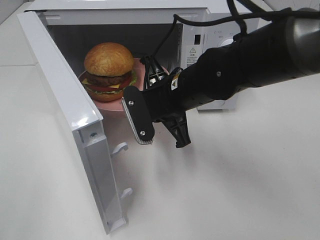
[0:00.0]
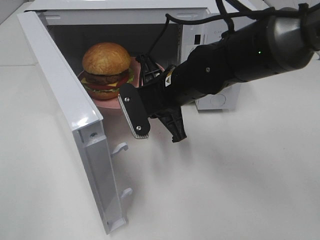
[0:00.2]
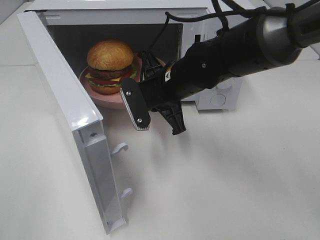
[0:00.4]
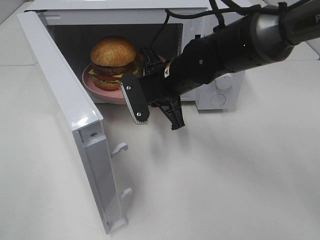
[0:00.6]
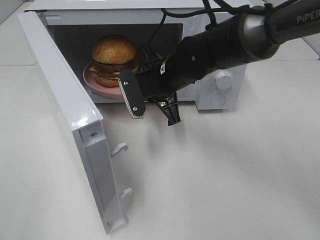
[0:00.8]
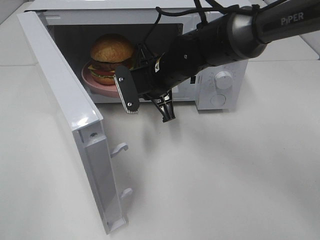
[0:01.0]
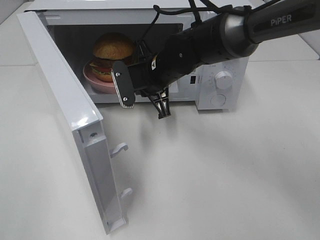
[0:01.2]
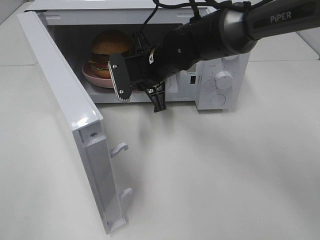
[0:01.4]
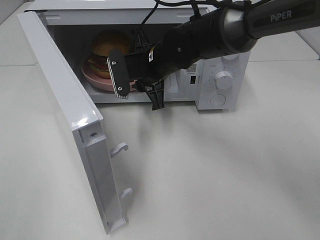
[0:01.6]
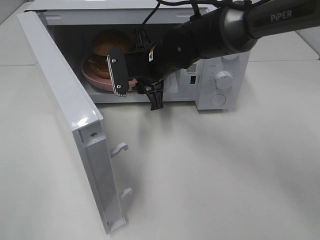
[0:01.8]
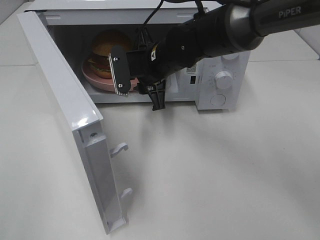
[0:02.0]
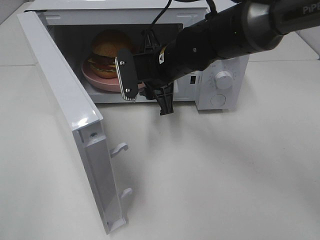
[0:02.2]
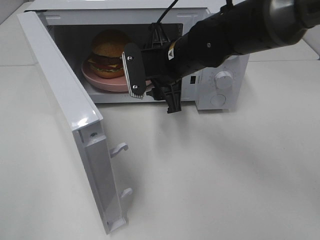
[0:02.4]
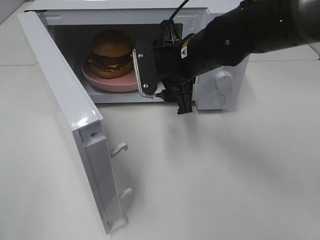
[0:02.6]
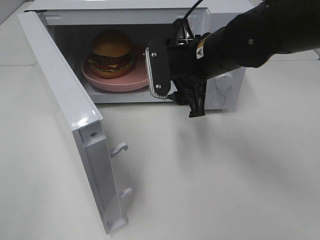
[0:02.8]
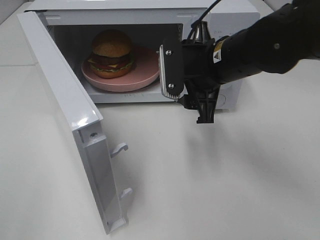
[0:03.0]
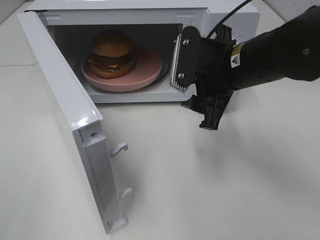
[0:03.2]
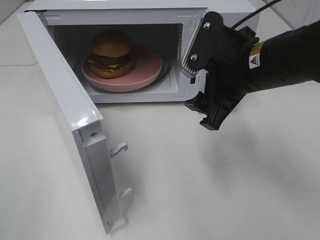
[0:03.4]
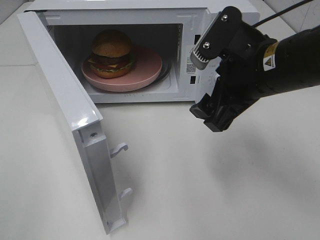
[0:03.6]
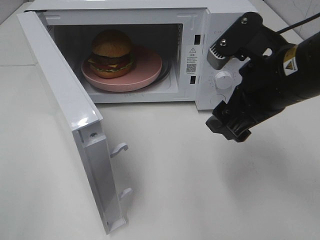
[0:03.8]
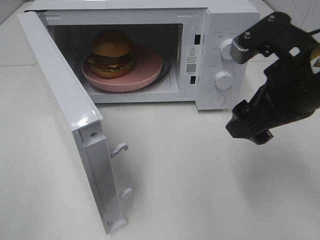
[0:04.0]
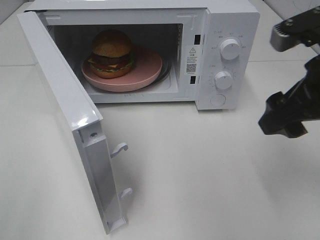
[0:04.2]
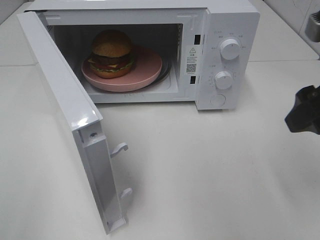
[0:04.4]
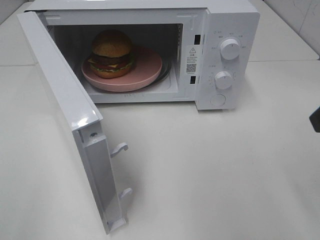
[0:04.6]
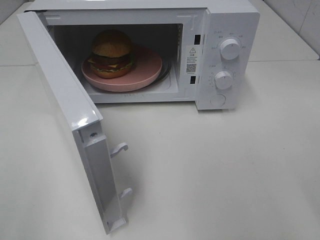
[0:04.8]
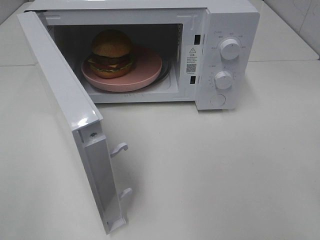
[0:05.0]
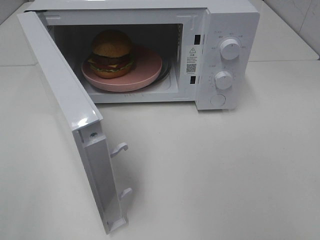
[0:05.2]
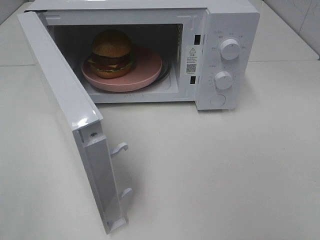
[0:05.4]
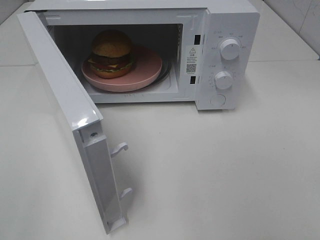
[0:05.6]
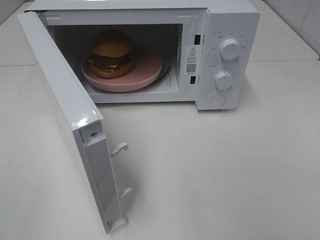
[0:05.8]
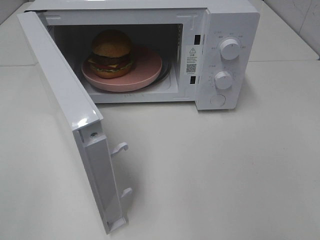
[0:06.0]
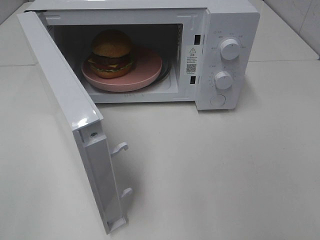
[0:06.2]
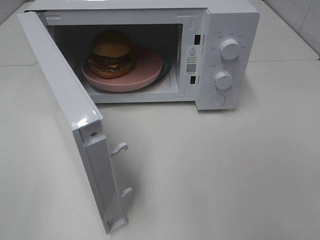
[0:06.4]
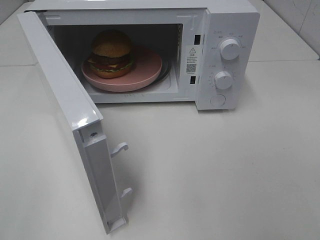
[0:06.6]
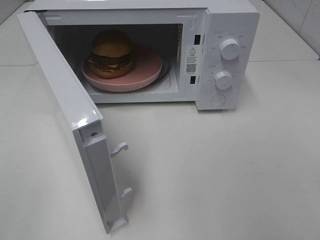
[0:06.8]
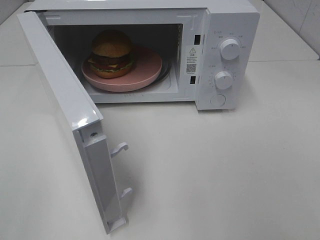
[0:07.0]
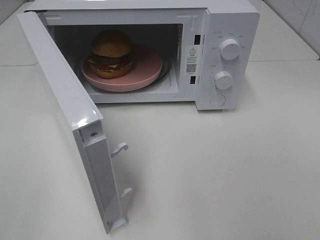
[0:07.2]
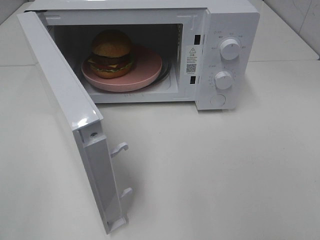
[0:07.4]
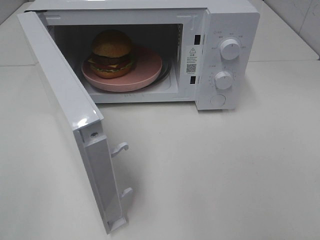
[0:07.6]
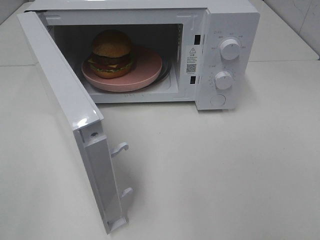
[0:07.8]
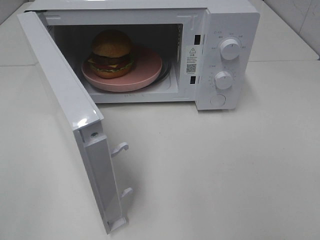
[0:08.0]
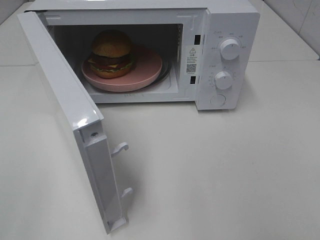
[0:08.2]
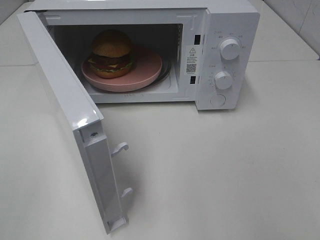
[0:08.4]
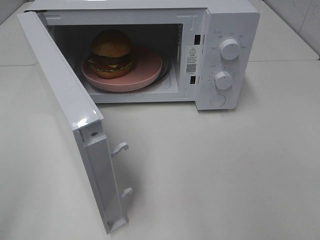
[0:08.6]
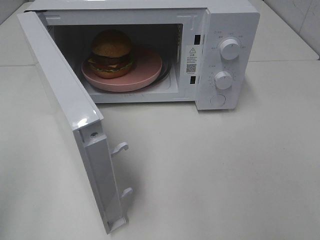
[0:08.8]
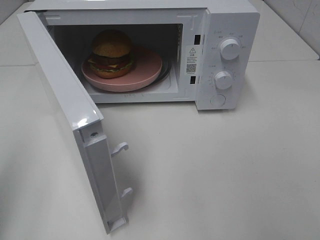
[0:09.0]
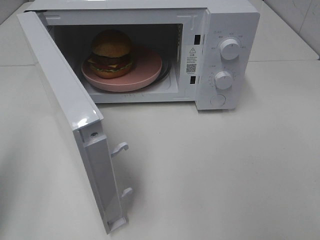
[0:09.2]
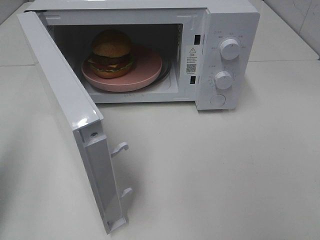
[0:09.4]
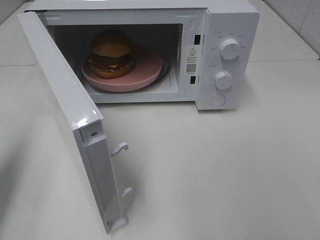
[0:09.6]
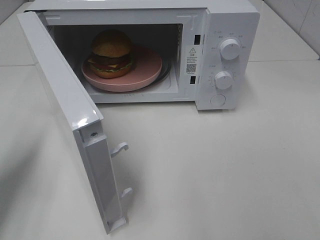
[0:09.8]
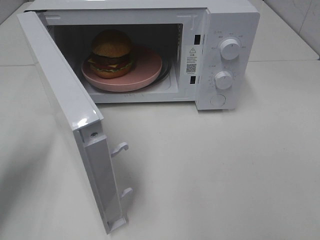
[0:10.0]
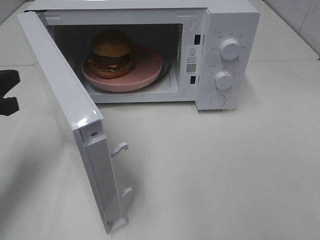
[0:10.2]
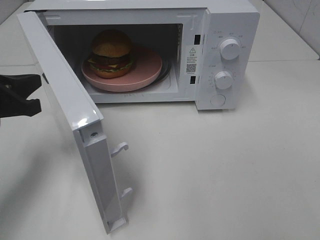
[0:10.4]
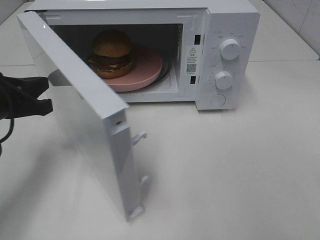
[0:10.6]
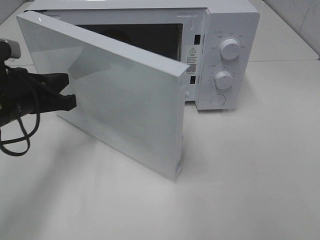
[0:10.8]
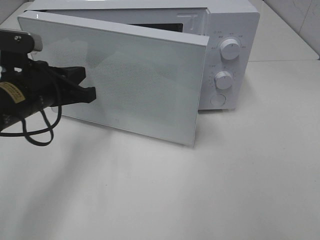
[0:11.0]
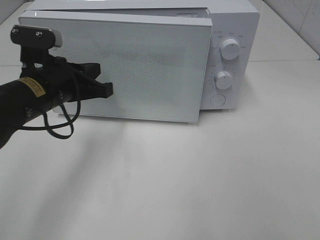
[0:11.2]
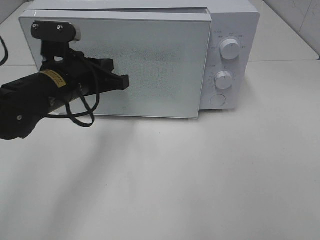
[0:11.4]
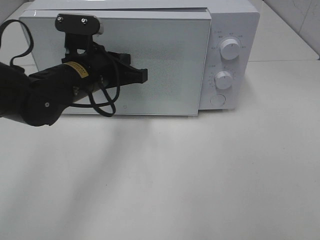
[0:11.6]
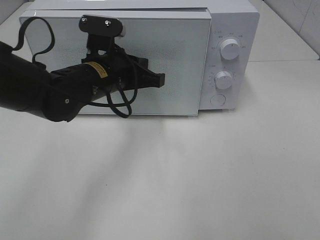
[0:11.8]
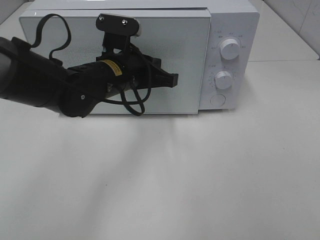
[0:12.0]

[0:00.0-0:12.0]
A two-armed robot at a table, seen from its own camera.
Task of the whole recording: Heat the burger.
0:00.0 to 0:01.6: The right gripper heads forward, covering about 10 cm.
0:01.6 to 0:03.0: The right gripper moves to the right, backward and upward, some 15 cm.
0:03.0 to 0:04.4: The right gripper shifts about 20 cm to the right, backward and upward.
0:04.4 to 0:06.0: The right gripper shifts roughly 20 cm backward.
0:06.0 to 0:07.6: Both grippers stay about where they are.
0:07.6 to 0:09.0: The left gripper is displaced forward by roughly 10 cm, and closes.
0:09.0 to 0:10.4: The left gripper moves forward, downward and to the right, some 20 cm.
0:10.4 to 0:12.0: The left gripper heads to the right, covering roughly 20 cm.

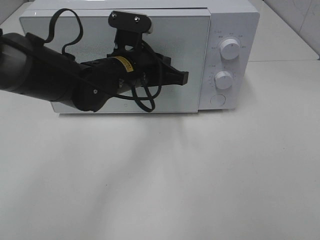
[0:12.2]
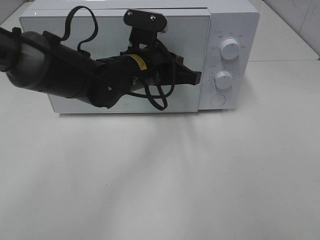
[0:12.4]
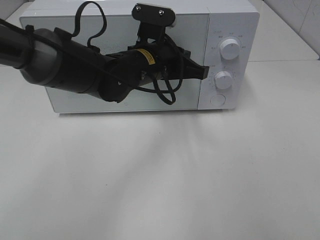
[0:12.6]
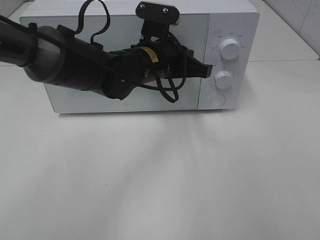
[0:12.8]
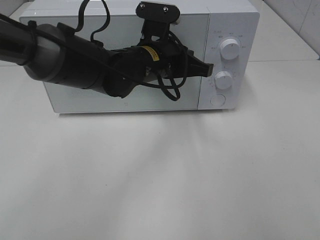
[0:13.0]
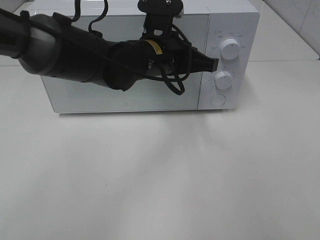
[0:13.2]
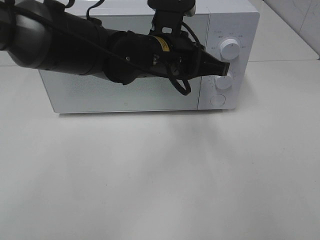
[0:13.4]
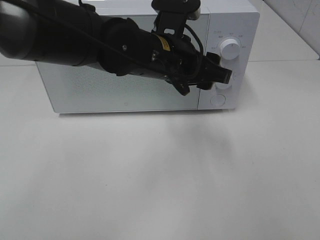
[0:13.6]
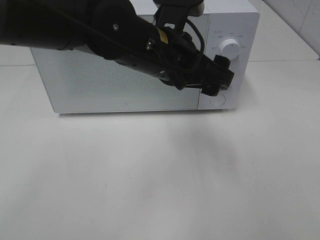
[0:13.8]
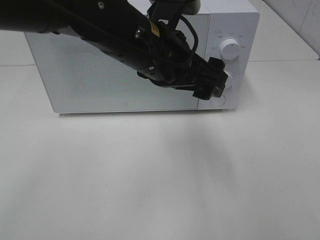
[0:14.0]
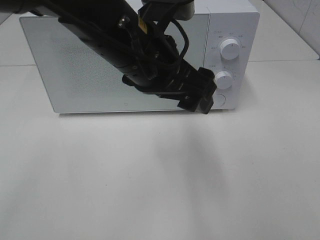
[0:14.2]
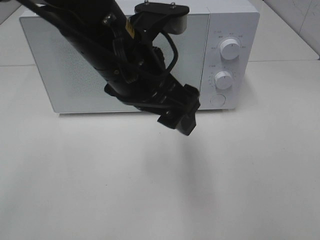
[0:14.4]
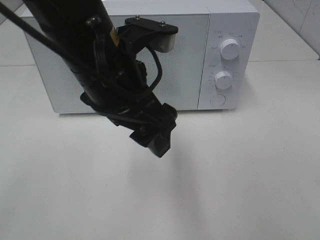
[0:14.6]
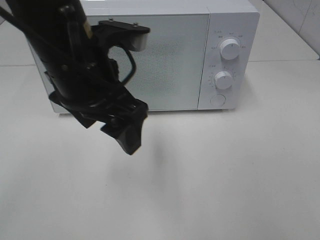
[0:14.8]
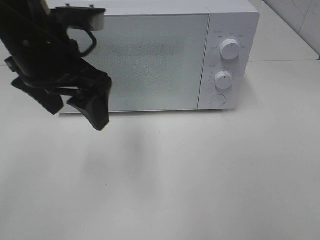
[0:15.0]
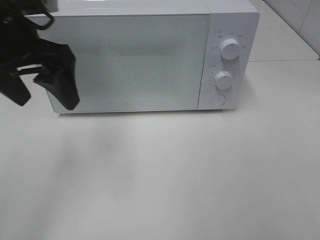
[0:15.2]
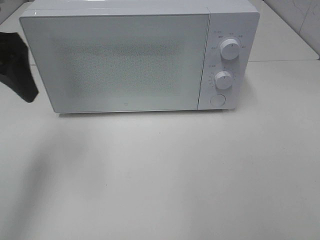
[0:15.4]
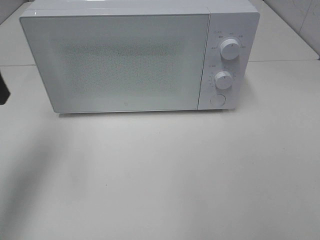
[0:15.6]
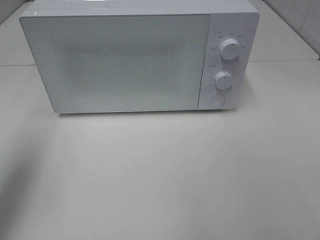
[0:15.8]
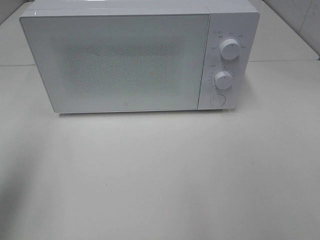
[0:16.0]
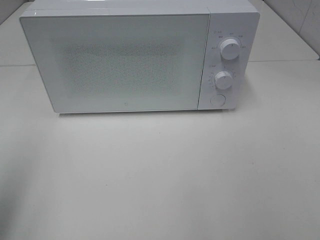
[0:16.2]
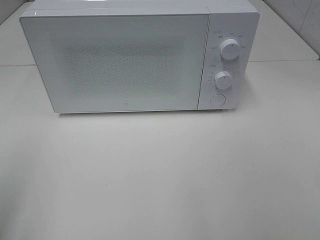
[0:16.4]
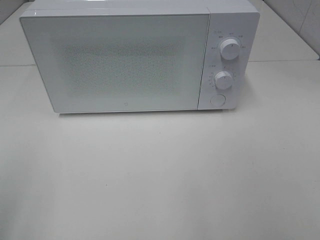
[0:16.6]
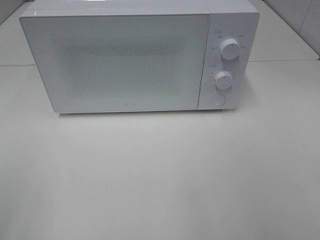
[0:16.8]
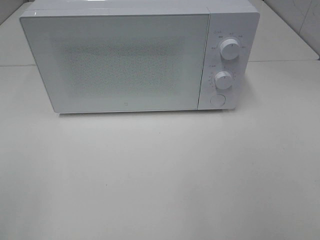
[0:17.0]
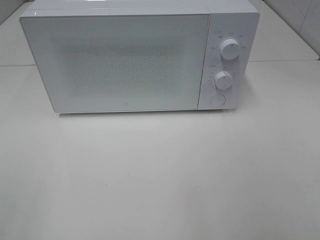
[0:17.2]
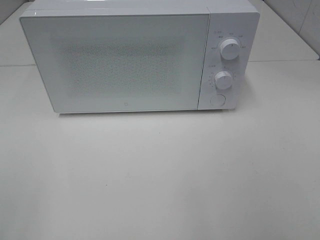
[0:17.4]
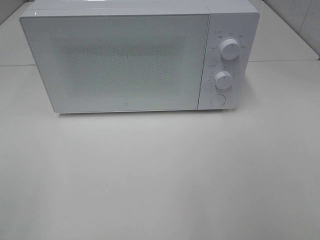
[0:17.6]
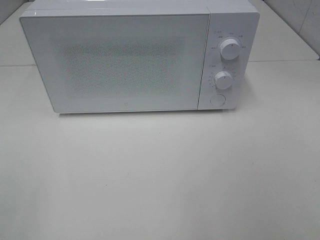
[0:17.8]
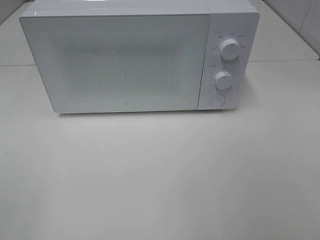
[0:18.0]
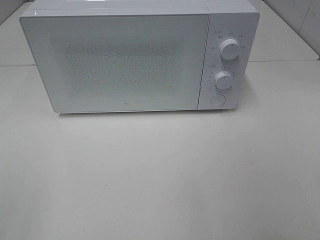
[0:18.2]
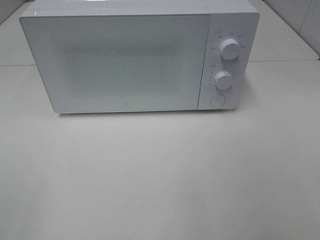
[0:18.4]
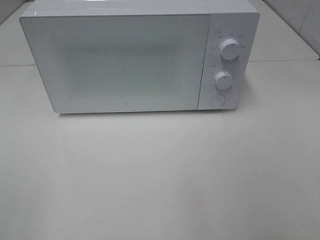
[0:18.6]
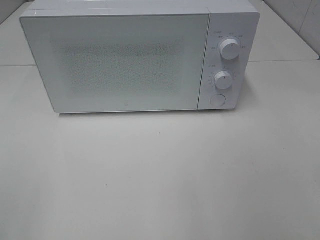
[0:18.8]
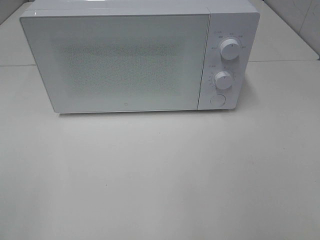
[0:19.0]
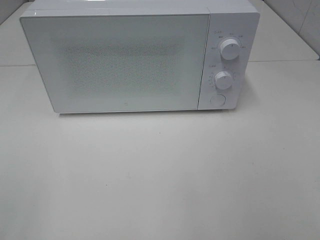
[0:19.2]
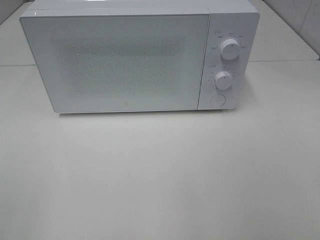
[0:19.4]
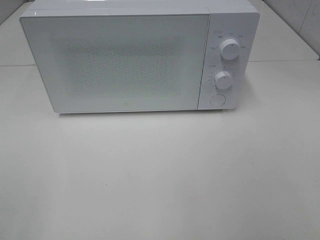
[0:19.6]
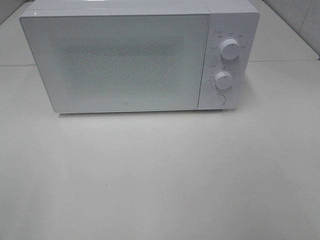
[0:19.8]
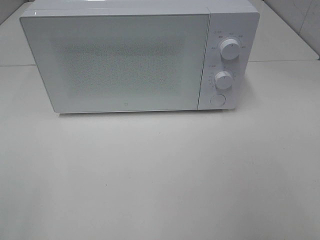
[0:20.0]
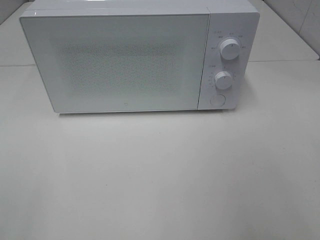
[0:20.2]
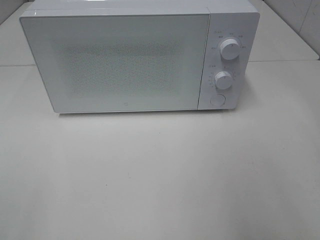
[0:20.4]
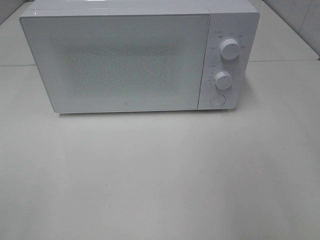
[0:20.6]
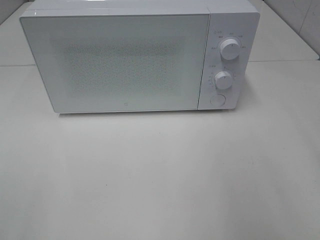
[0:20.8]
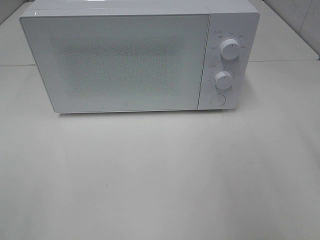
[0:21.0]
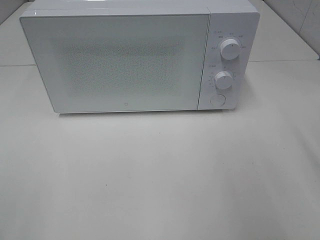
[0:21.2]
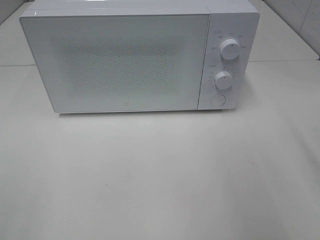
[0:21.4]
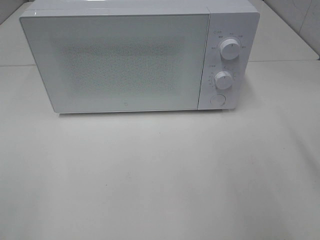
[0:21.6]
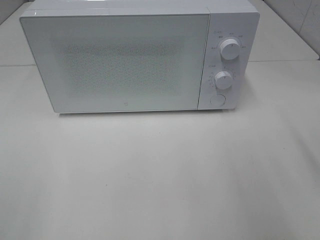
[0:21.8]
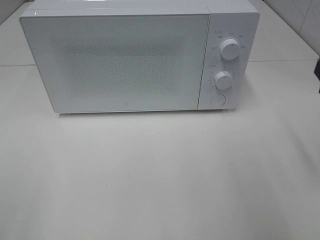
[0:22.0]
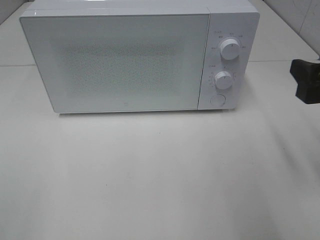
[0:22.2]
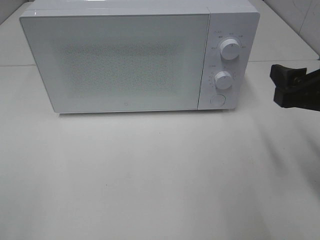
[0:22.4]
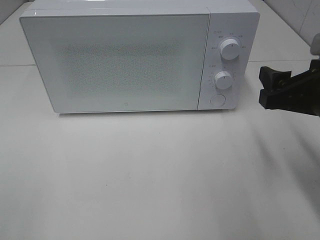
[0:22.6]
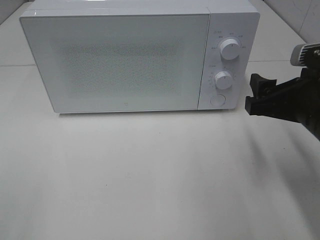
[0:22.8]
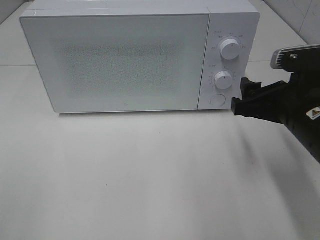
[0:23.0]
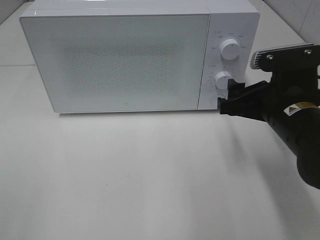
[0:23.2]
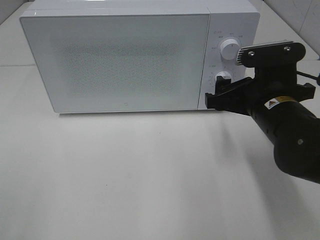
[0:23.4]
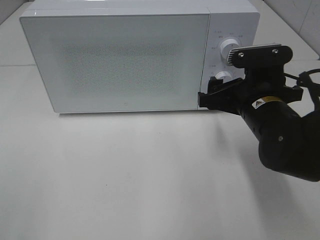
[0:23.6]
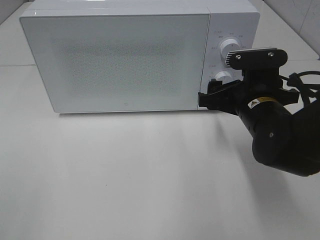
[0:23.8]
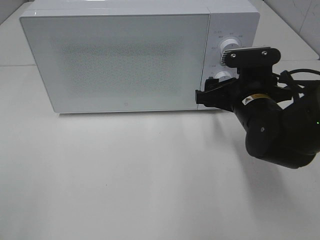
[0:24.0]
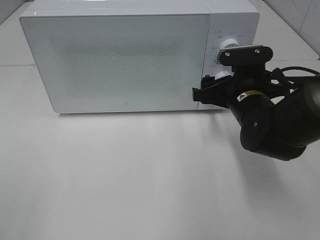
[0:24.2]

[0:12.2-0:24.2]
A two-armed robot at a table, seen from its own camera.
Task of the whole recording: Heat the burger.
0:12.2 to 0:13.8: The left gripper is displaced upward and backward by roughly 10 cm, and opens up.
0:13.8 to 0:15.2: The left gripper shifts about 20 cm to the left.
0:15.2 to 0:16.6: The left gripper travels backward and to the left by roughly 25 cm.
0:21.2 to 0:22.6: The right gripper heads downward and to the left, covering about 10 cm.
0:22.6 to 0:24.2: The right gripper shifts approximately 15 cm forward, downward and to the left.
